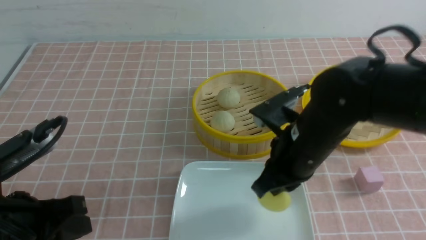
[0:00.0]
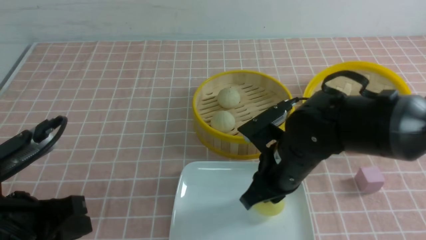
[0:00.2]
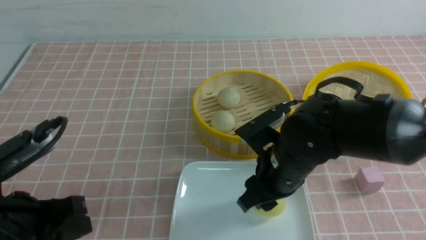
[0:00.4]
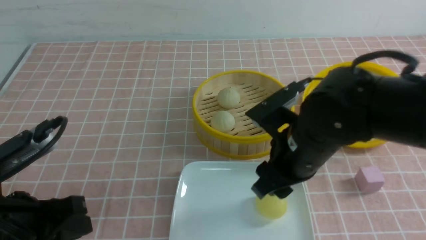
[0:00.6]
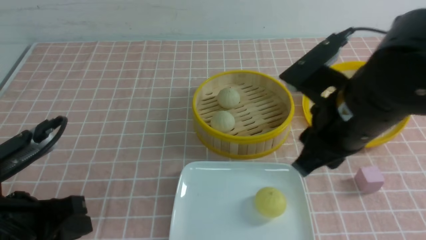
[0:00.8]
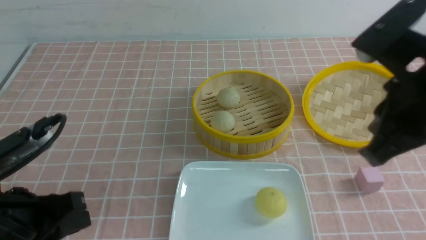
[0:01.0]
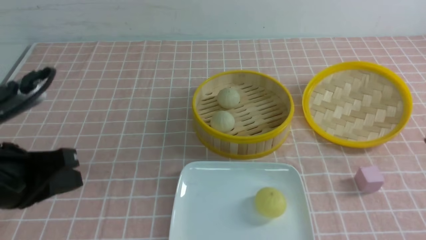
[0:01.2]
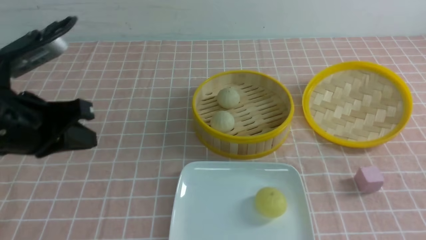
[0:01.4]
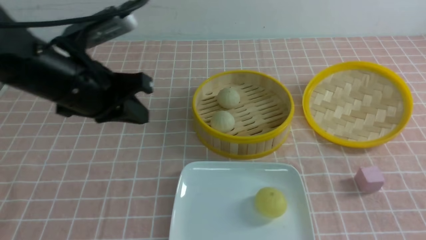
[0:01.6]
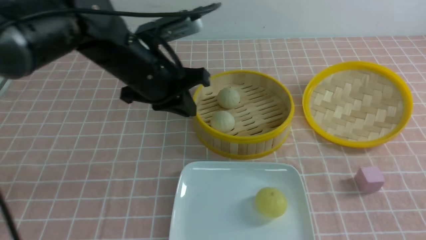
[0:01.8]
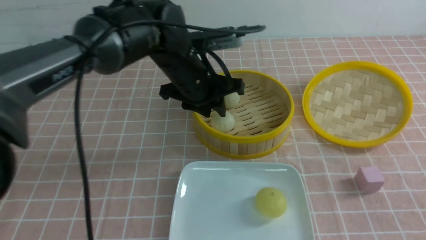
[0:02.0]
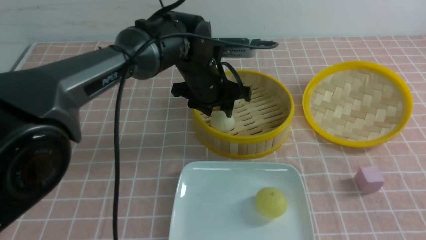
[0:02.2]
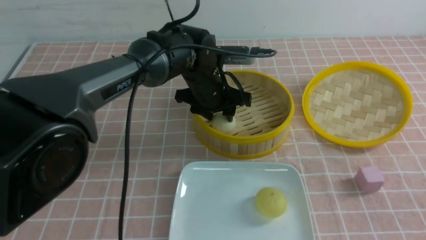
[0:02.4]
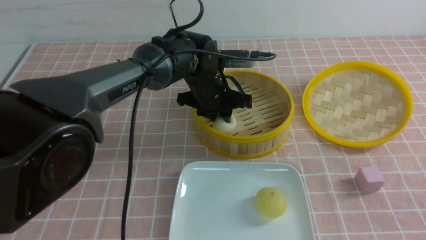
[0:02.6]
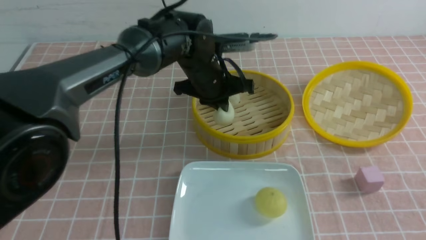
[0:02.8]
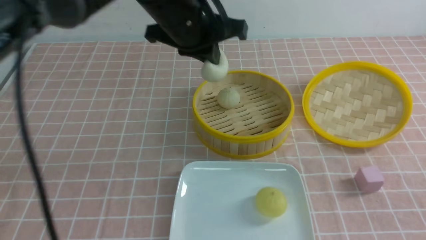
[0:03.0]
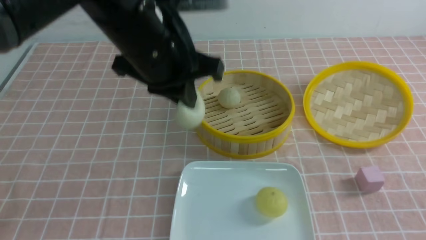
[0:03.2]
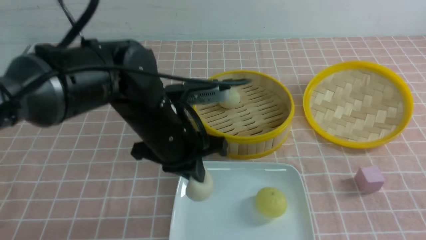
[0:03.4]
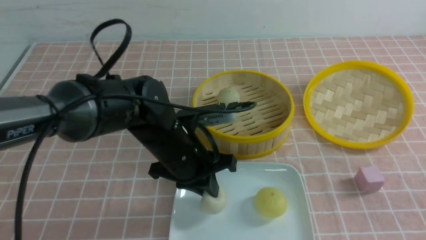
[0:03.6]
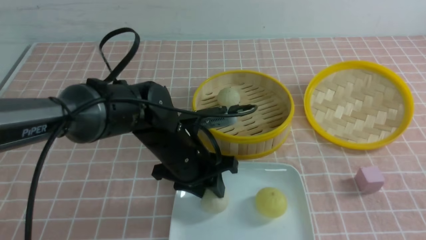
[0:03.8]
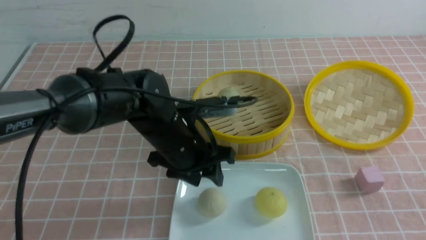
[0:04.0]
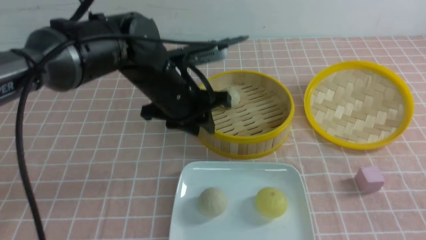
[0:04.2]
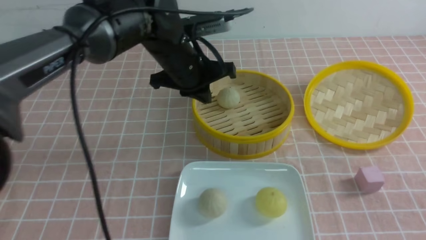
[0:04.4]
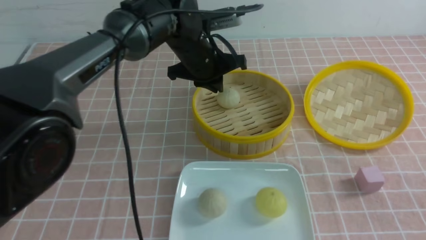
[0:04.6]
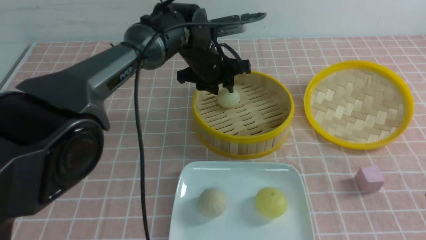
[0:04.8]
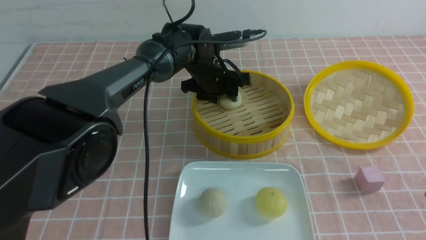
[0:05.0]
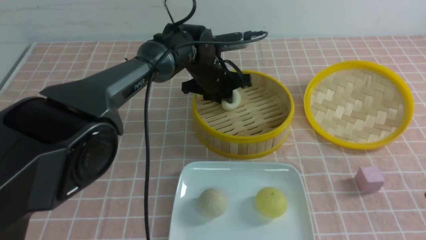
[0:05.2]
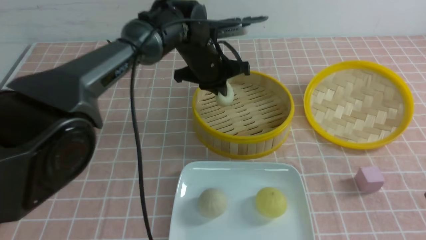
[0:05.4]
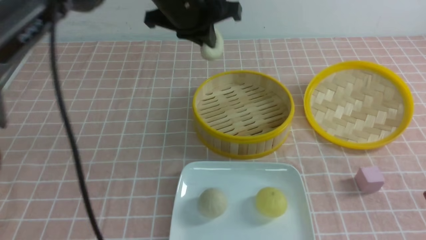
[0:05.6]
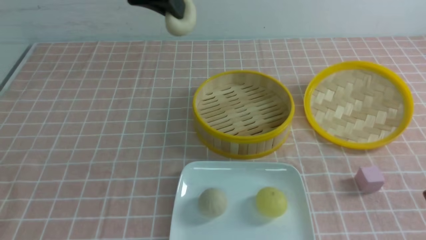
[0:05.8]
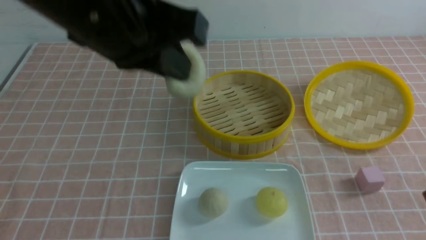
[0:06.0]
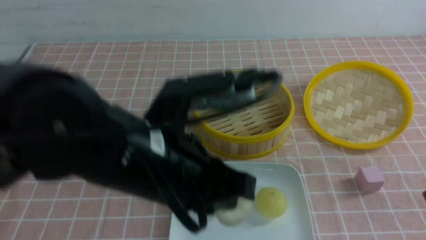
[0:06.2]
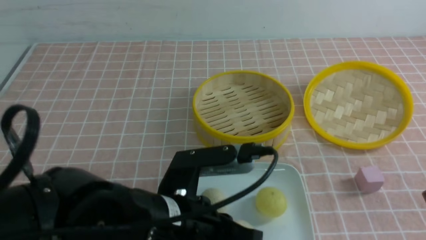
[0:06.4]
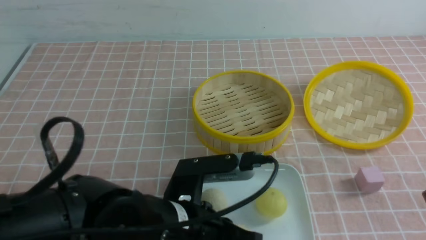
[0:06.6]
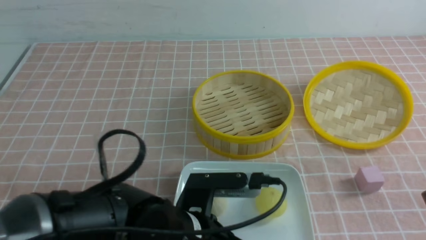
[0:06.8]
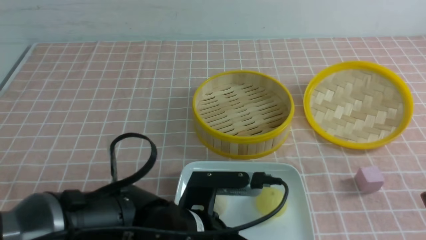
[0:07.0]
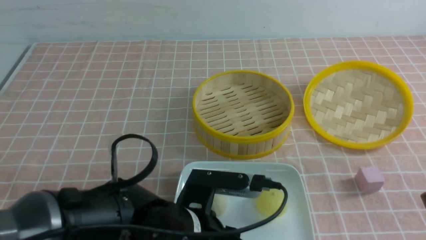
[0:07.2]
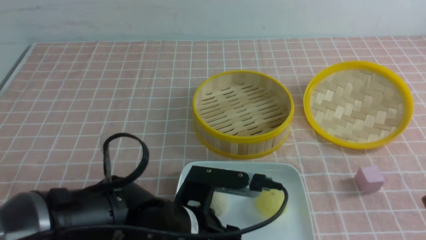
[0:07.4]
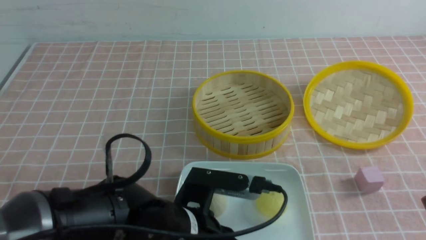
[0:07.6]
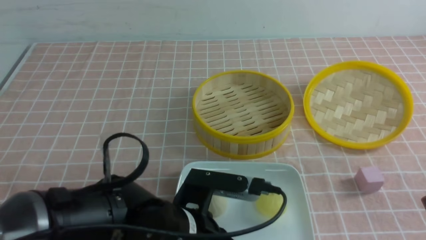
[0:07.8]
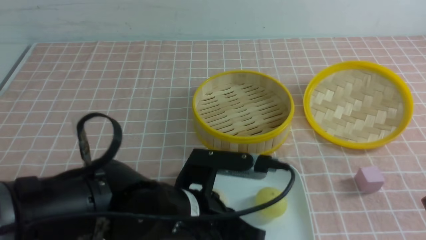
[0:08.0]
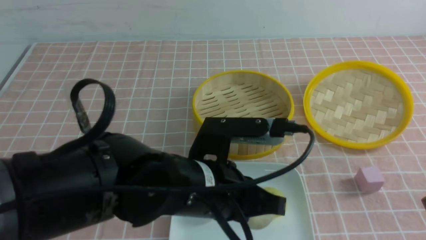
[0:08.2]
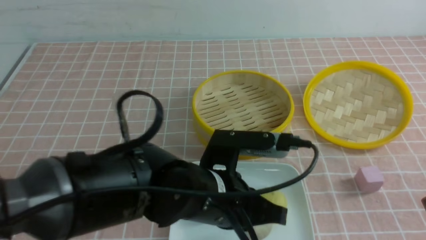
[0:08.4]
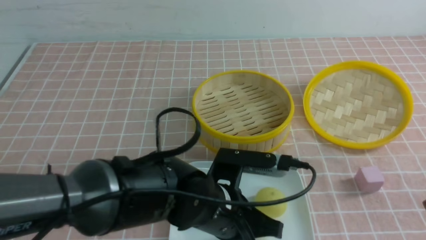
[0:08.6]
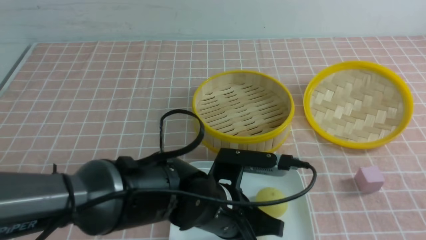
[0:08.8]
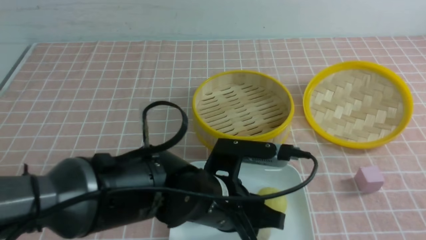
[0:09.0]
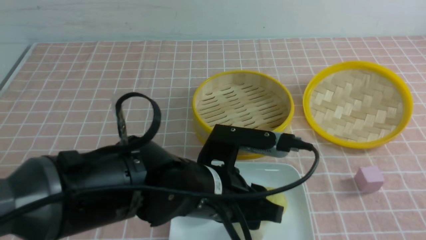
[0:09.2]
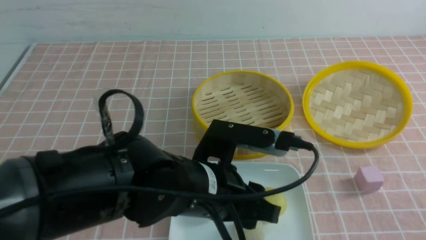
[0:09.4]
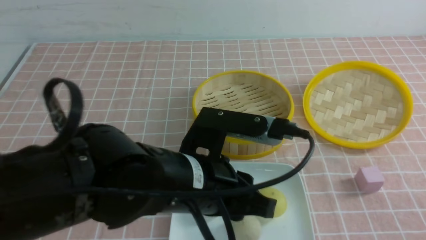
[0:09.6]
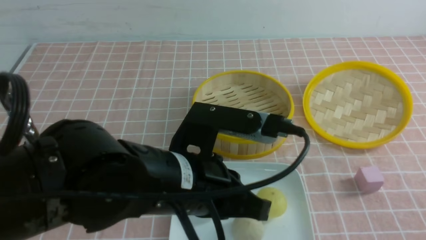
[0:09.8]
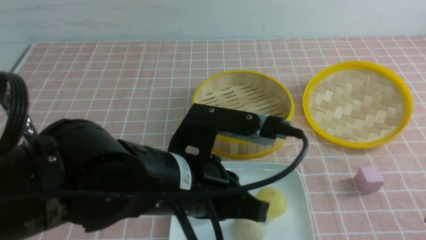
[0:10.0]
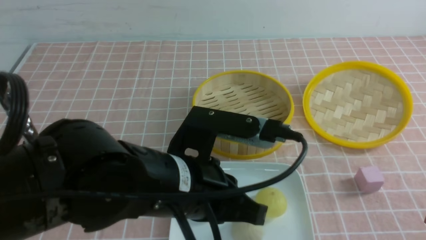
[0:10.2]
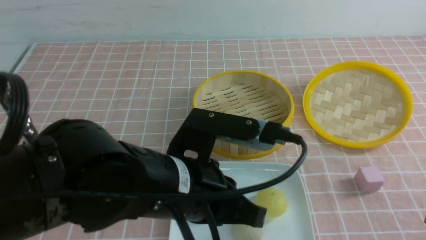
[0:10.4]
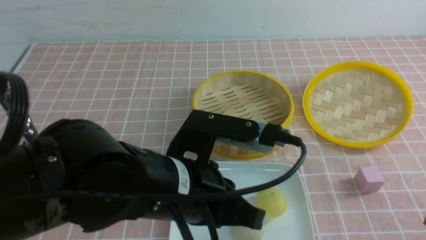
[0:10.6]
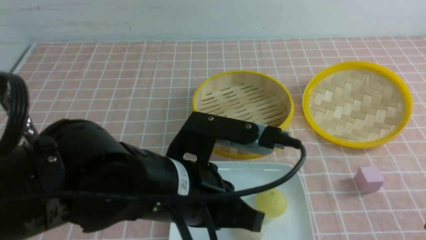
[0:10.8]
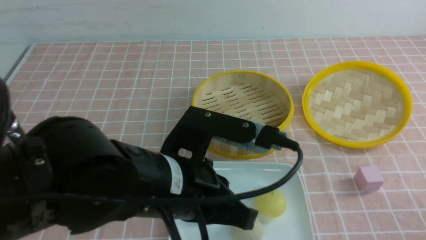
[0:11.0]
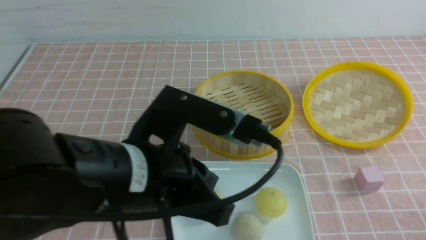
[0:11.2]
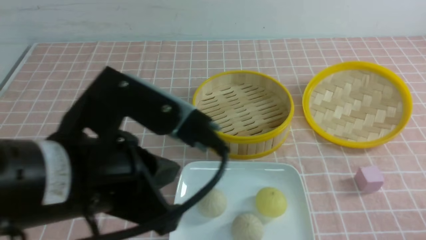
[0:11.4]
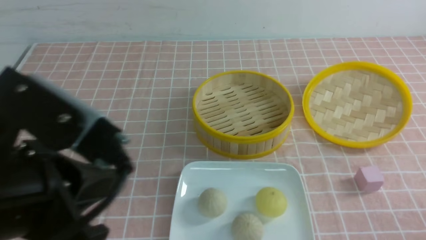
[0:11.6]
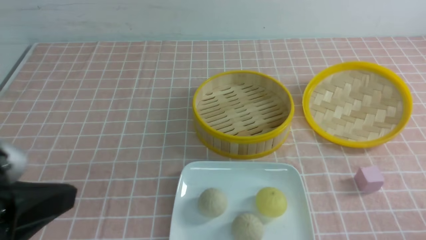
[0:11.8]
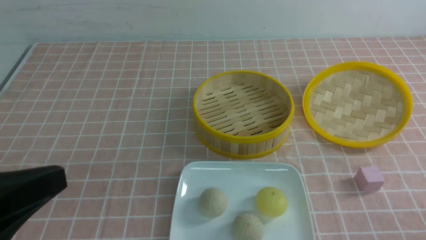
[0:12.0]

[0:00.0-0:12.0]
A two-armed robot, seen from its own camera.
Step, 0:00.6 to 0:02.6: use the left arm to grab the steamed stuffed bun that is closest to it.
Step, 0:02.8 to 0:03.8: use the left arm to put the steamed stuffed bun into the plate.
Step, 0:04.0 to 0:05.2: use the left arm to grab the steamed stuffed bun that is closest to it.
Step, 0:05.4 to 0:09.6: use the left arm to put the steamed stuffed bun into the plate.
0:00.0 to 0:01.6: The left gripper shifts about 20 cm forward, to the right and upward, while the right gripper goes approximately 25 cm backward, to the right and upward, and opens, then closes once more.
0:01.6 to 0:03.0: The left gripper moves to the right and forward, roughly 15 cm, and opens, then closes once more.
0:03.0 to 0:04.4: The left gripper goes about 5 cm downward, and opens, then closes once more.
0:04.4 to 0:06.0: The left gripper moves backward and upward, about 20 cm, and opens, then closes once more.
0:06.0 to 0:07.6: The left gripper heads downward, covering roughly 20 cm, and opens its fingers.
0:07.6 to 0:09.0: The left gripper ends up approximately 5 cm from where it was, and closes, then reopens, while the right gripper moves roughly 5 cm, and closes up.
0:09.0 to 0:10.4: The right gripper travels downward by approximately 5 cm; the left gripper is displaced upward by roughly 5 cm, and closes up.
0:10.4 to 0:12.0: The right gripper goes approximately 10 cm downward, while the left gripper moves to the left, backward and upward, some 20 cm.

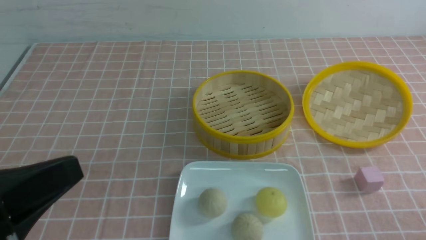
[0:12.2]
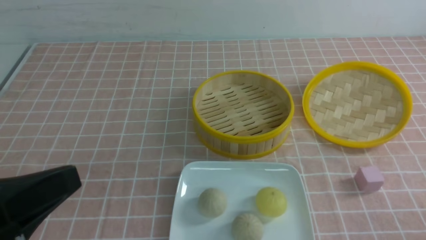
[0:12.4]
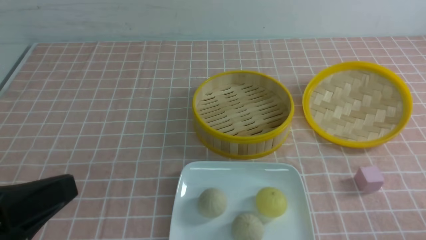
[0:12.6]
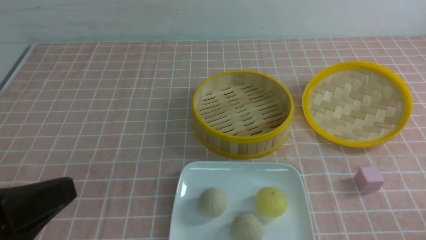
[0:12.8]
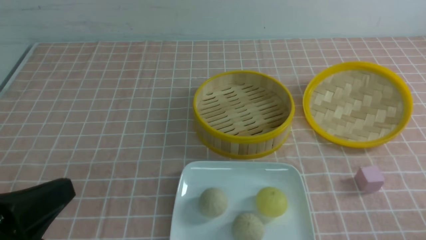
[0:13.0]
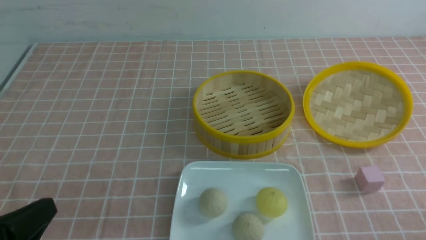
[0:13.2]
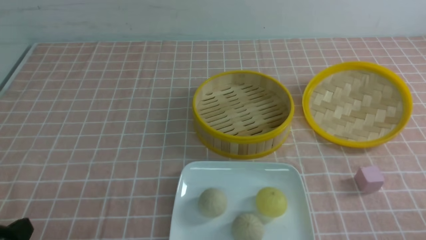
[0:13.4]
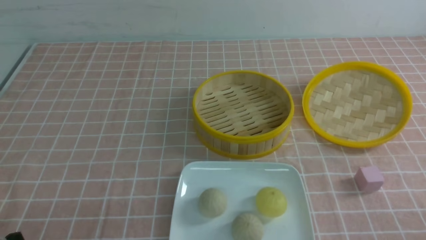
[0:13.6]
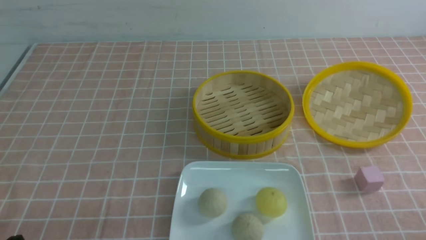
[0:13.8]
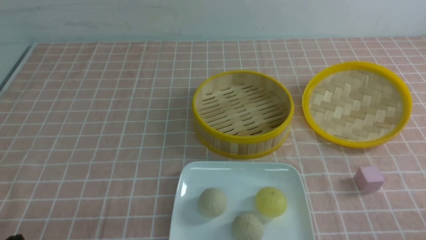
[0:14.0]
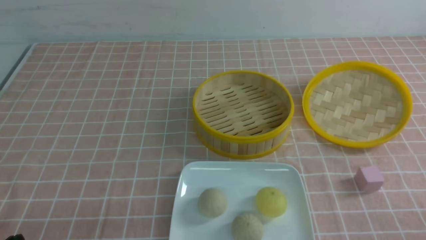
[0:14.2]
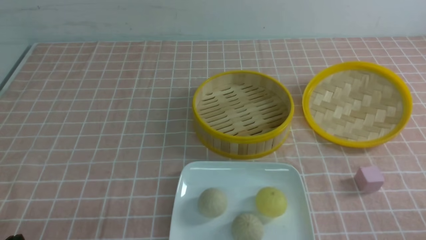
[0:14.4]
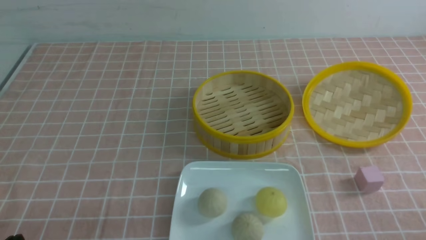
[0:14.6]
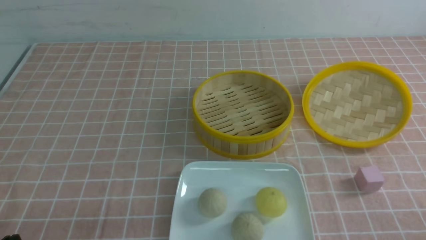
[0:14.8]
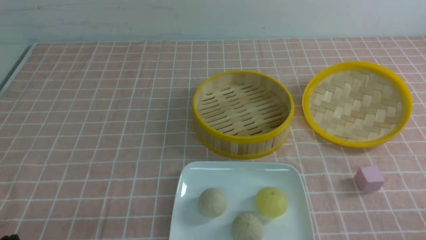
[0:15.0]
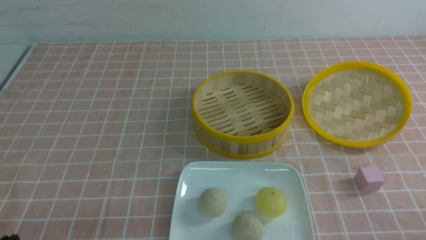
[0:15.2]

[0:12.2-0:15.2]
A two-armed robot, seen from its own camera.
0:12.2 to 0:13.8: The left gripper heads downward, covering approximately 15 cm.
0:13.8 to 0:15.2: Neither gripper changes place.

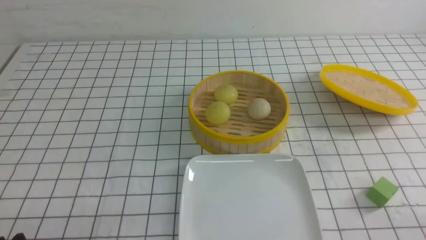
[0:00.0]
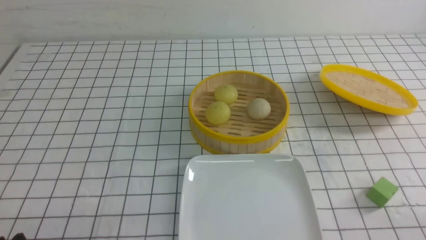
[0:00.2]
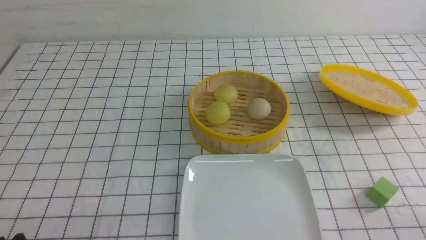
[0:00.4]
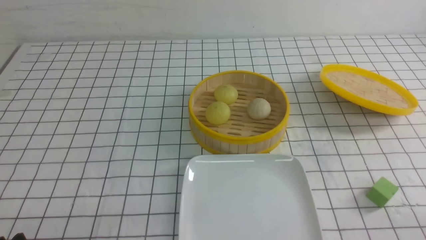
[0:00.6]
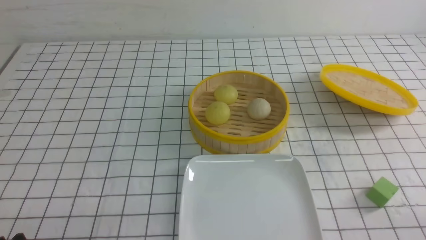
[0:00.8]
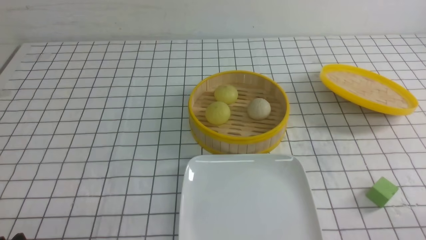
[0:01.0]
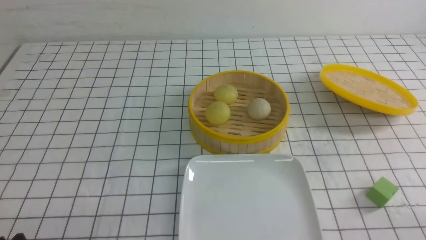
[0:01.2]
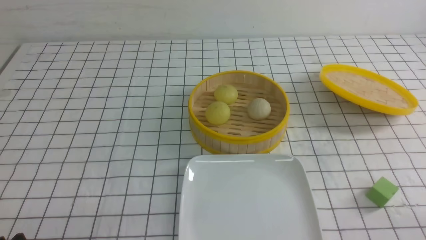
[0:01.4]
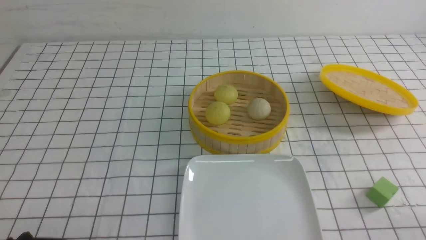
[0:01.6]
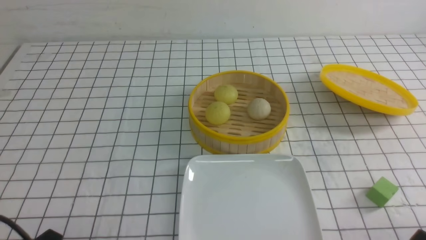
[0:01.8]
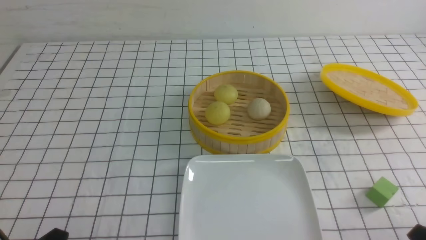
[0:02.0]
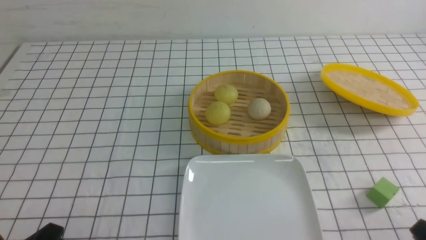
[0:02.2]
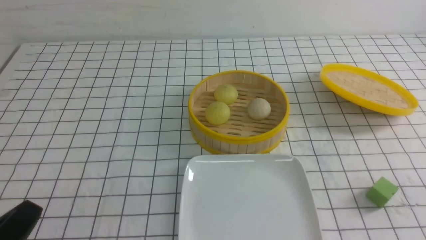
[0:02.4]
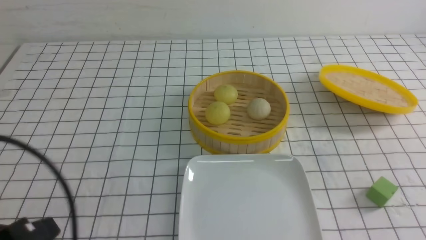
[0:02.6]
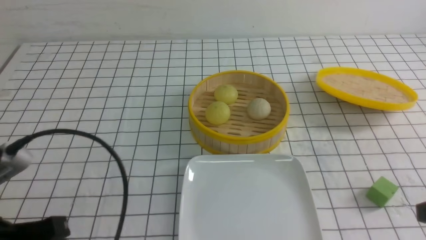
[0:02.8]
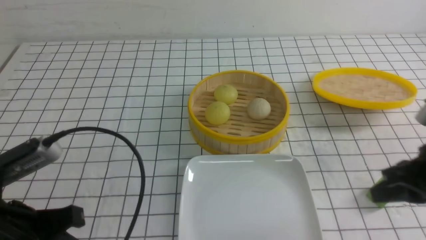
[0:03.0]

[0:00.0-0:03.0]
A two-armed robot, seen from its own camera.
0:01.6 to 0:03.0: The left gripper travels upward and forward by roughly 10 cm, and closes. The right gripper goes roughly 20 cm forward and upward, and closes its fingers.
